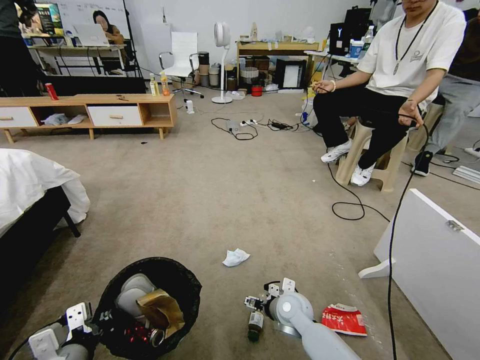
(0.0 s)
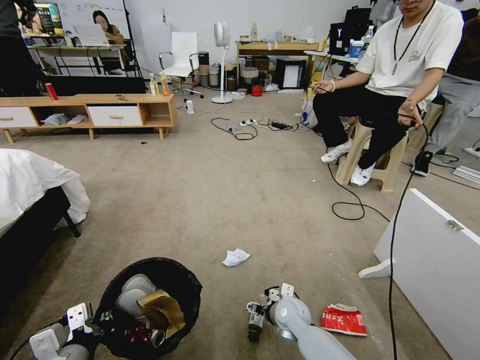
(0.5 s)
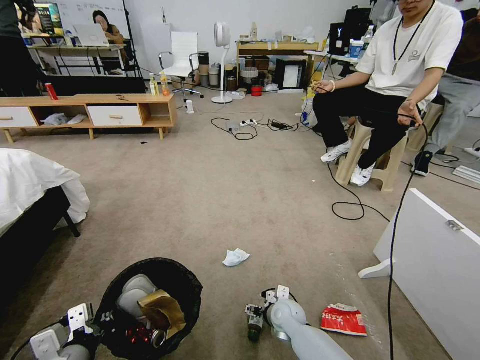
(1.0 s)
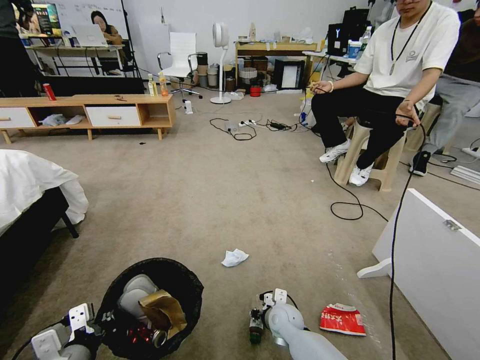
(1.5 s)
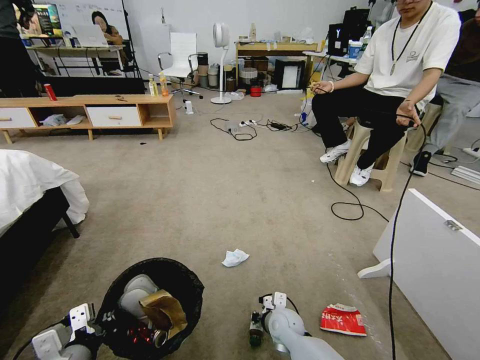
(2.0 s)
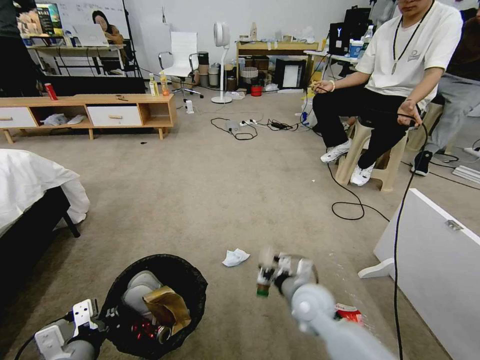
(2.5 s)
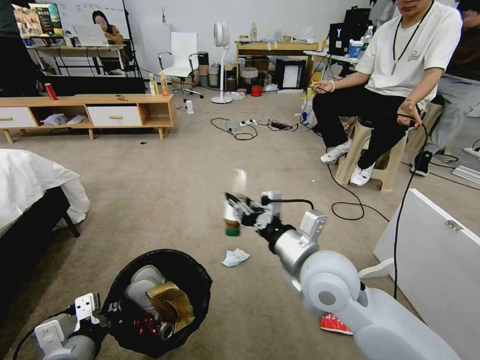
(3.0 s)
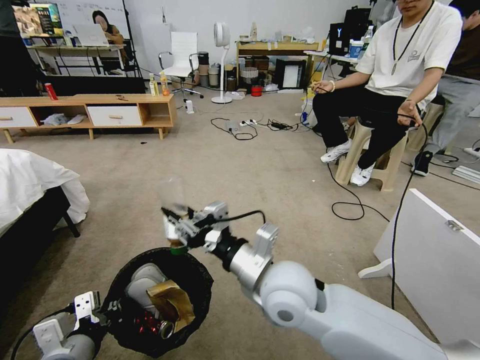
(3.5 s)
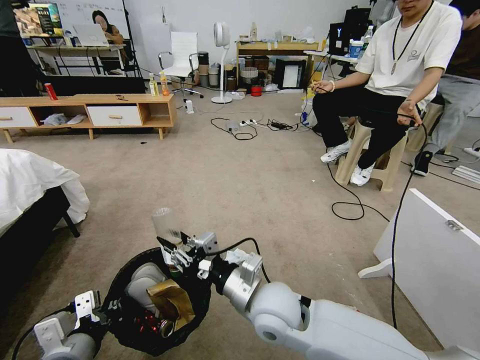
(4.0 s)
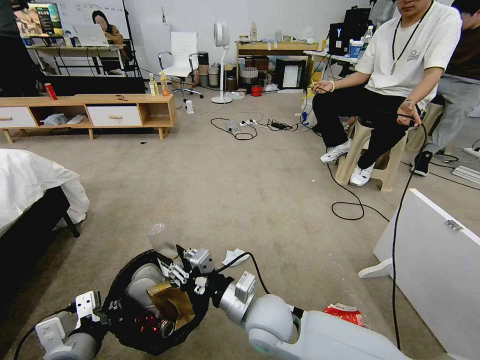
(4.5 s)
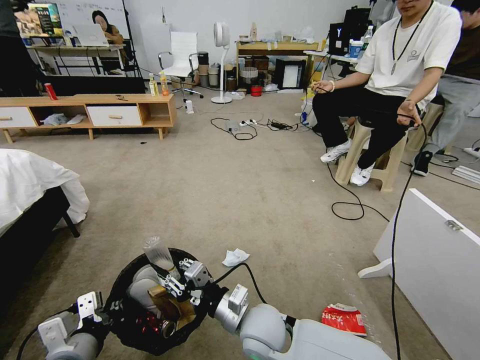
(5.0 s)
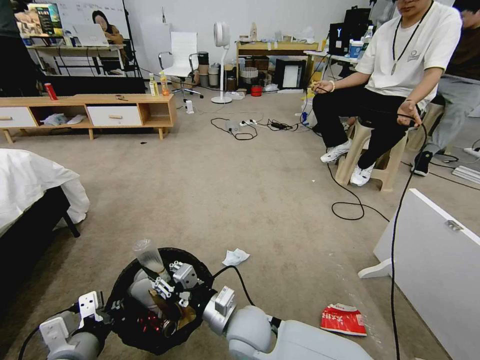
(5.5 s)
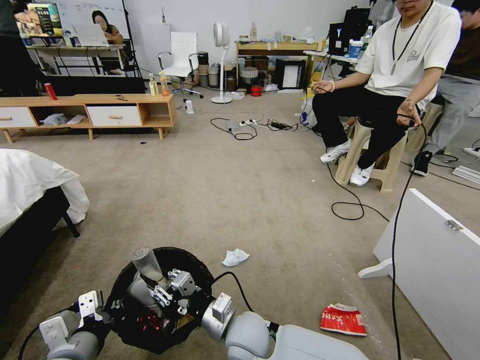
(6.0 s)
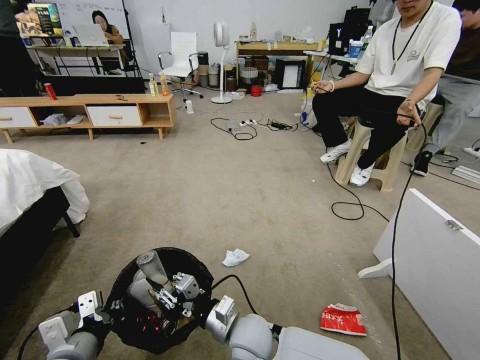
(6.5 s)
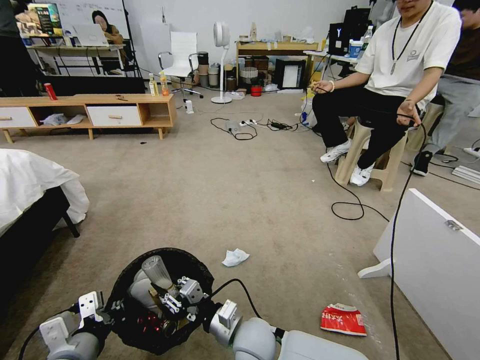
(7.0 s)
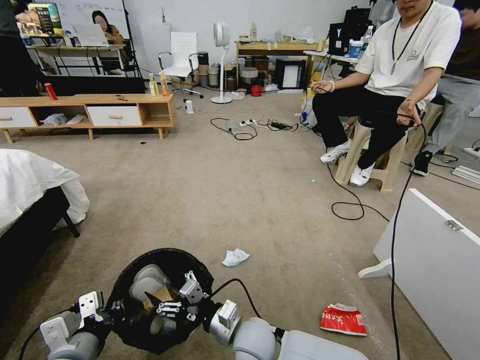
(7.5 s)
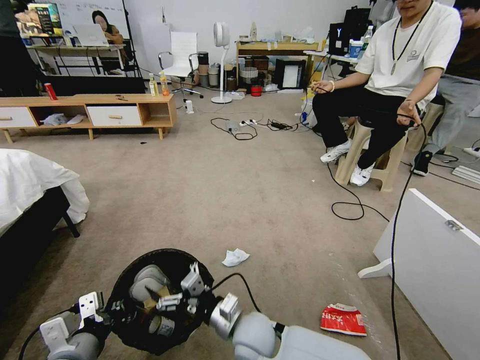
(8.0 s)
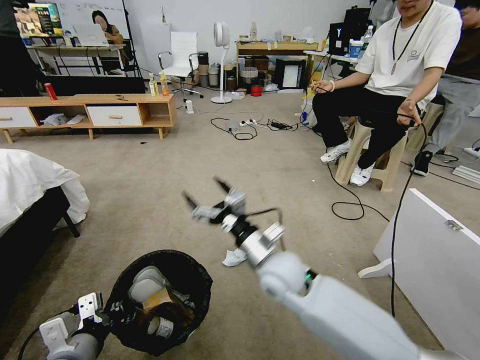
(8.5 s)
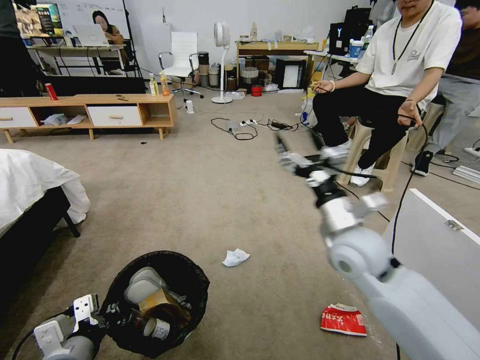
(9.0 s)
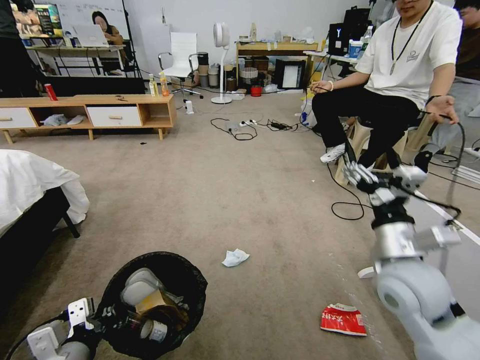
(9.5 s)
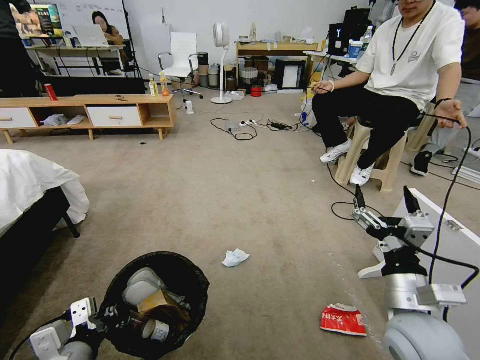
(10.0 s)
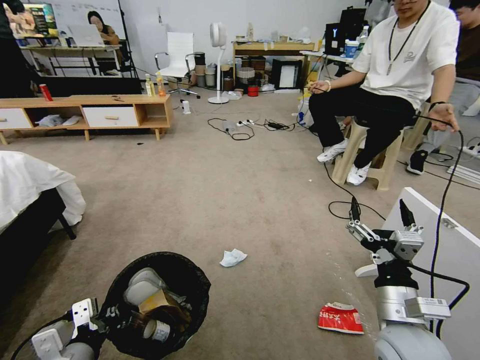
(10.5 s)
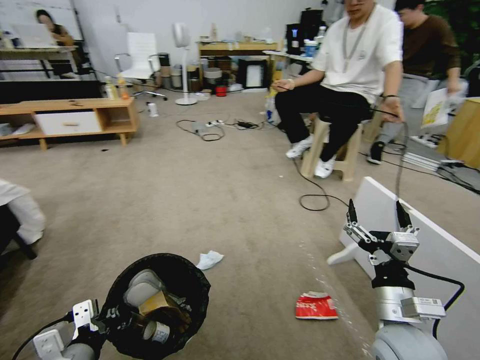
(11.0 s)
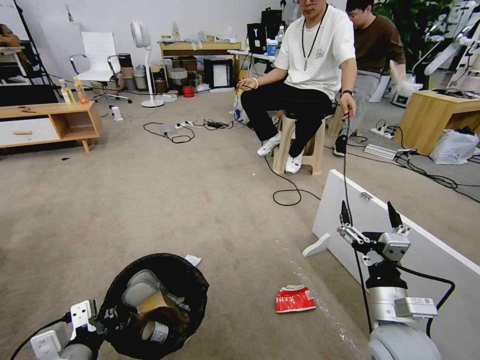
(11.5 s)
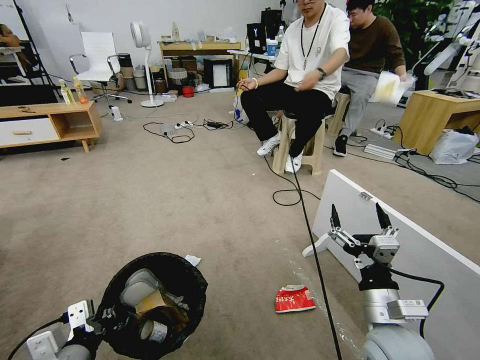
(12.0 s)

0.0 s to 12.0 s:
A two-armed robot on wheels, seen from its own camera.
Task of the whole recording: Pick up the trash bin and place the garbage on the floor into it.
0.0 to 2.0 s: The right gripper moves downward, some 5 cm, and closes its fingers.
2.0 to 4.0 s: The right gripper travels upward by roughly 25 cm.
4.0 to 6.0 s: The right gripper goes approximately 10 cm downward.
6.0 to 8.0 s: The right gripper opens.
8.0 to 10.0 s: The right gripper travels to the right and upward by roughly 30 cm.

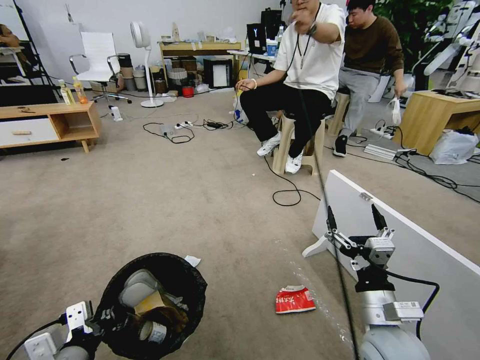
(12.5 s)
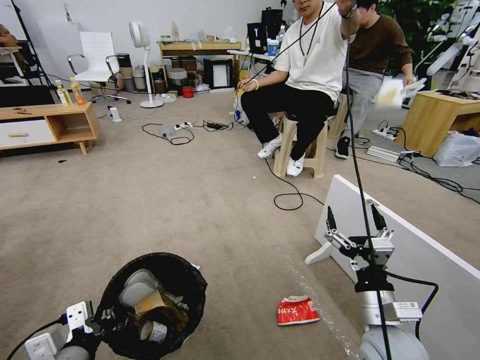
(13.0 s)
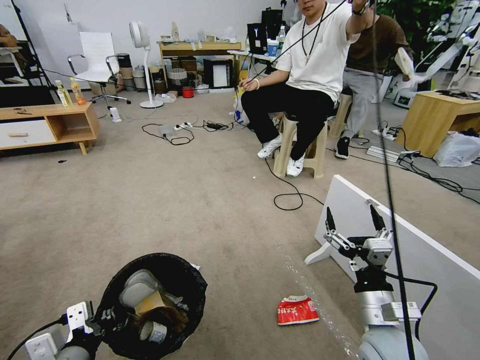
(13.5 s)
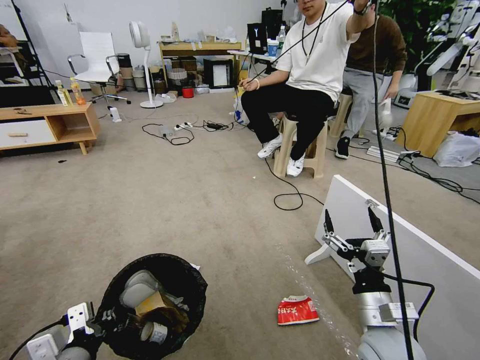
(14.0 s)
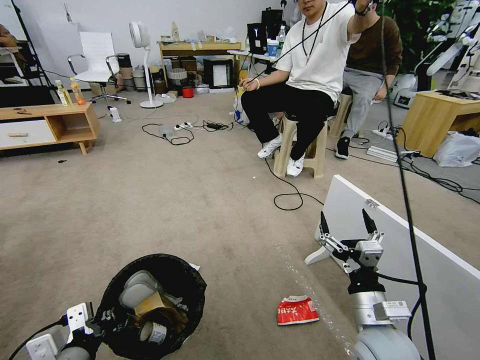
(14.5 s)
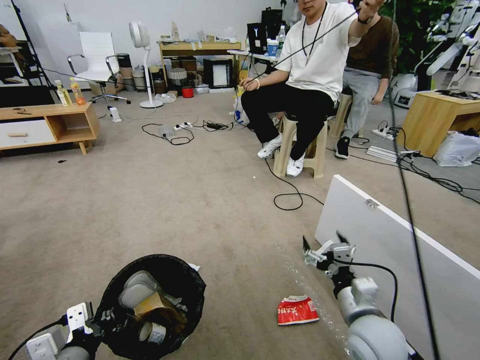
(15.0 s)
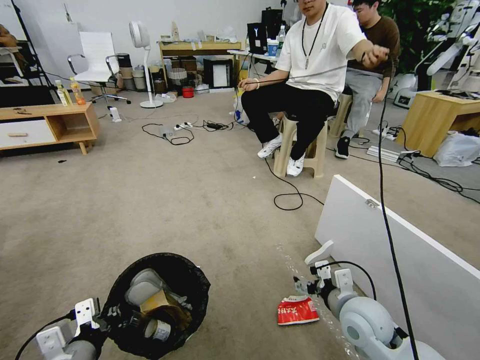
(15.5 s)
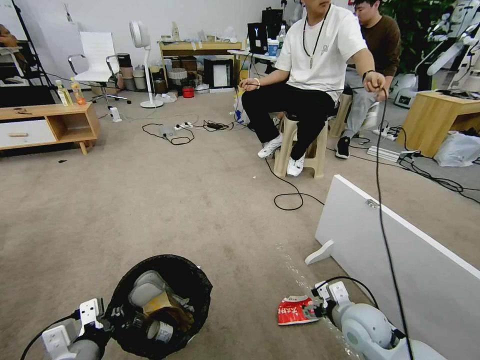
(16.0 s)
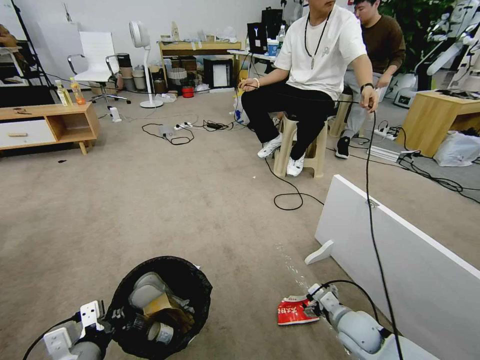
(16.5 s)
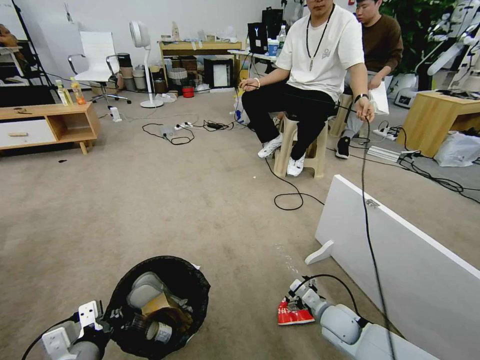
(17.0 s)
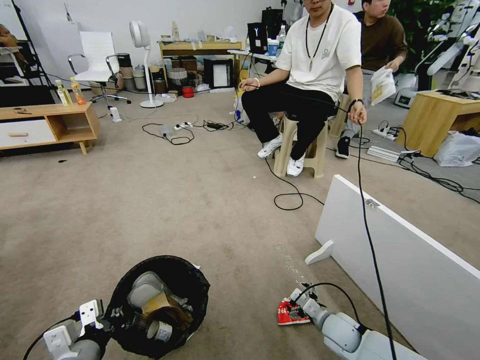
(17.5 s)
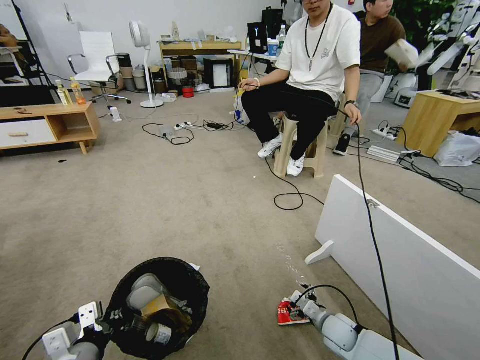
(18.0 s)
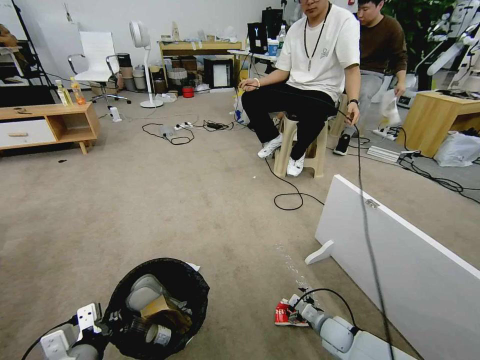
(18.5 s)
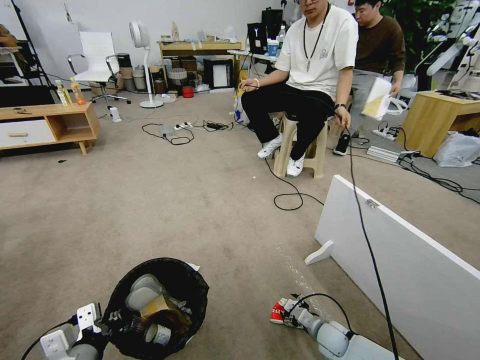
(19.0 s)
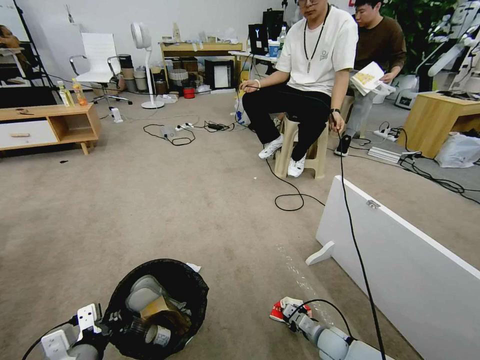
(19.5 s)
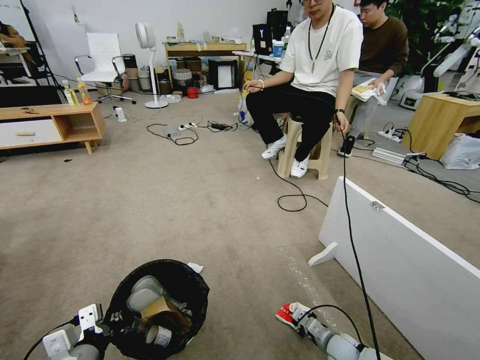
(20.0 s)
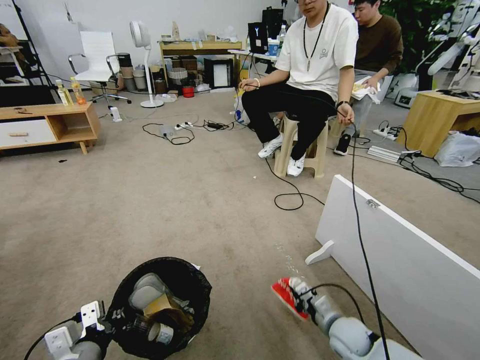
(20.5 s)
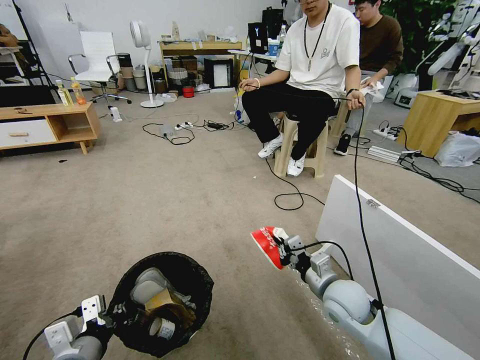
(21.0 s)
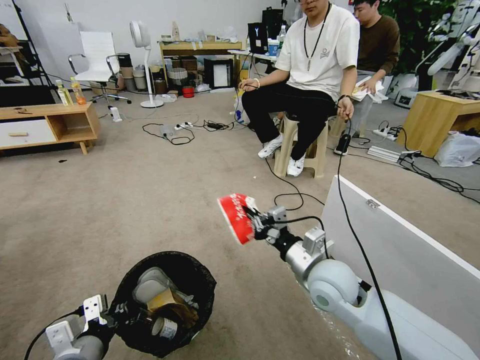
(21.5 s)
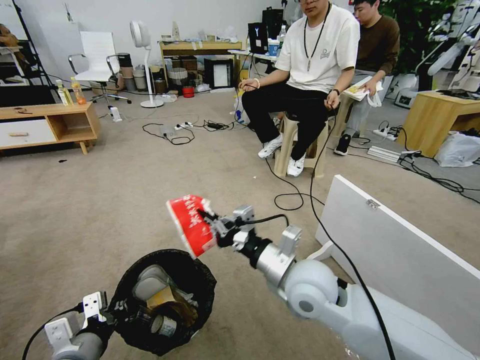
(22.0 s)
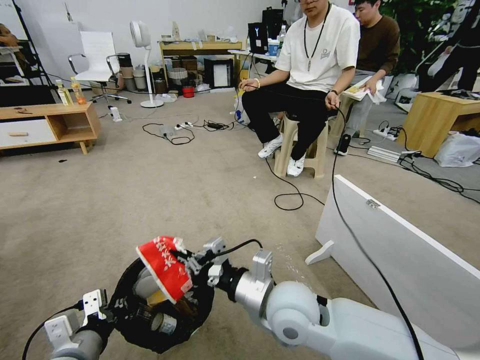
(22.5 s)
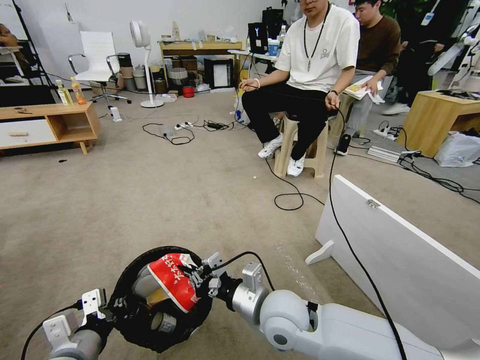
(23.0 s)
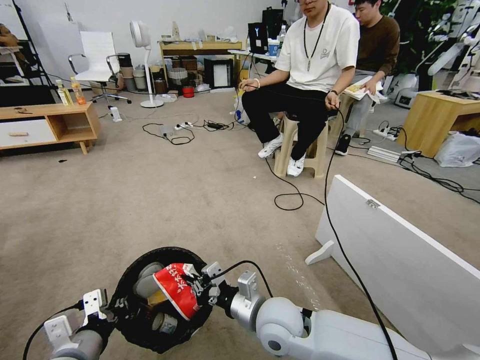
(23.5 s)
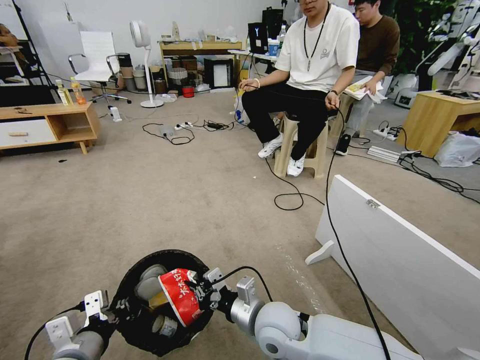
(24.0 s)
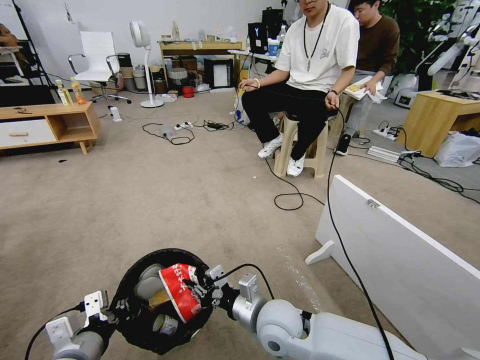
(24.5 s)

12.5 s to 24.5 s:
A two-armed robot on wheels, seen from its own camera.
Task of the whole recording: Pick up the trash bin and place the garbage on the floor into it.
12.5 to 14.5 s: The grippers stay close to where they were, moving slightly.
14.5 to 16.5 s: The right gripper heads downward and forward, covering about 15 cm.
16.5 to 18.5 s: The right gripper shifts about 10 cm downward.
18.5 to 20.5 s: The right gripper moves upward, some 5 cm, and closes its fingers.
20.5 to 22.5 s: The right gripper is displaced upward and to the left by about 30 cm.
22.5 to 24.5 s: The right gripper moves downward, approximately 10 cm.

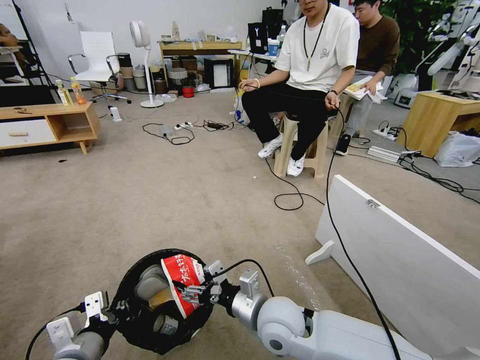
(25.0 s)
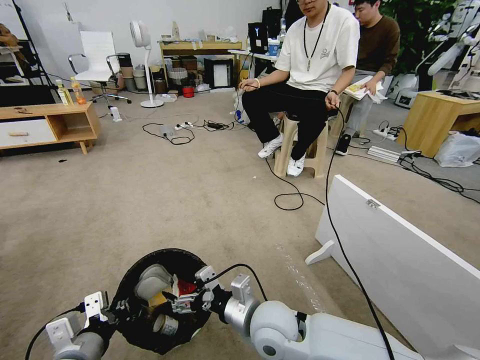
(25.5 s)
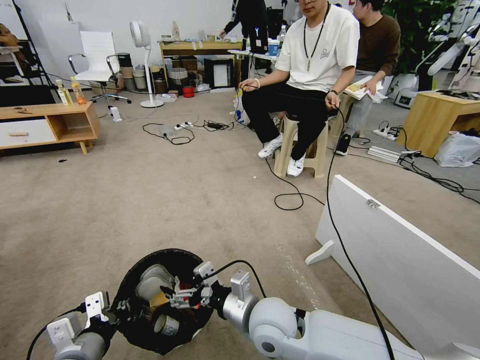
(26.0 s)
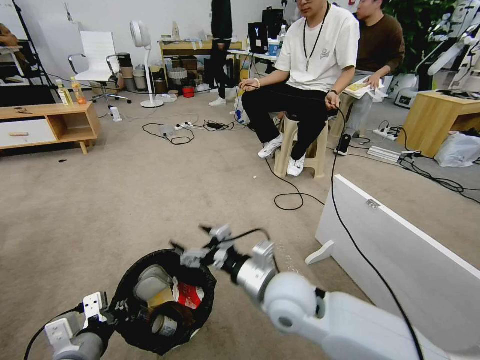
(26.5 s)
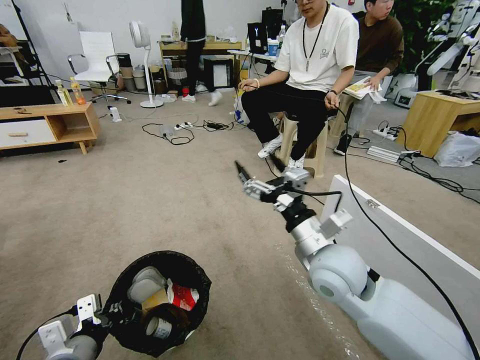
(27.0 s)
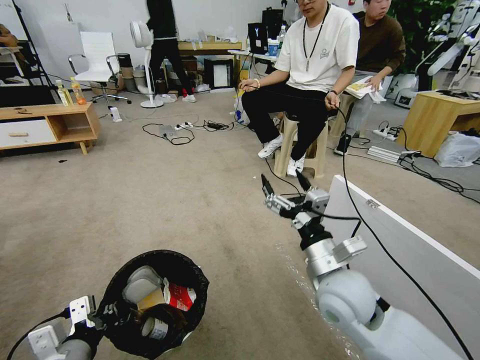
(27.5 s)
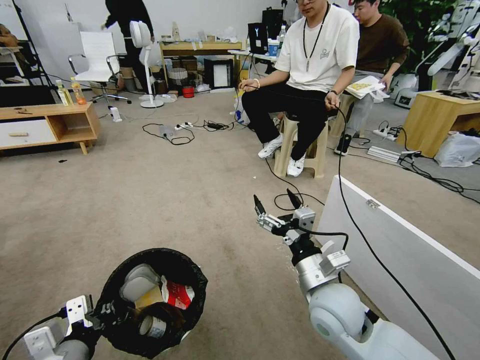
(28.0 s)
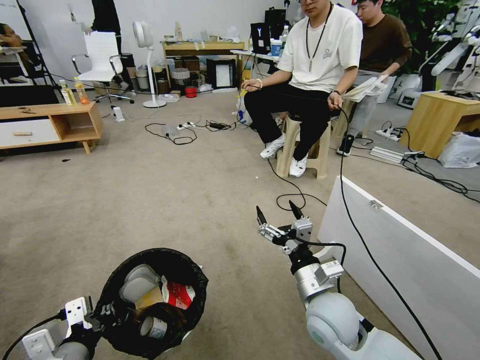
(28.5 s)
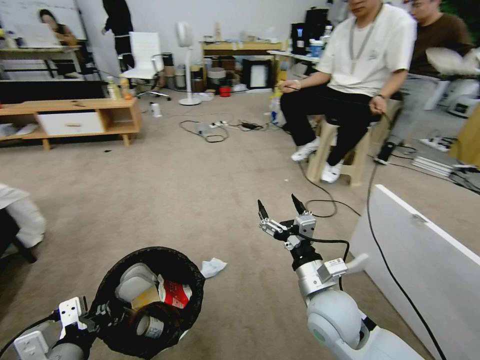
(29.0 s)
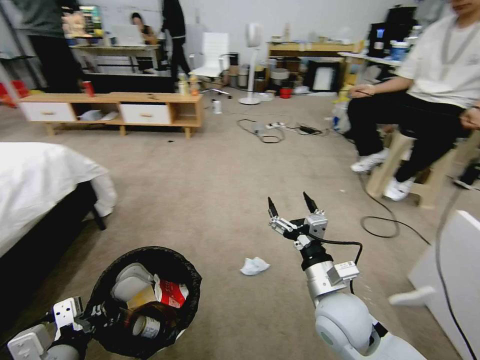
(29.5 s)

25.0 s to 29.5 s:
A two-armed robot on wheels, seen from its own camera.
Task of the whole recording: Pick up the trash bin and place the garbage on the floor into it.
25.0 to 27.0 s: The right gripper is displaced upward and to the right by approximately 15 cm.
27.0 to 29.5 s: The right gripper moves downward, some 10 cm.
